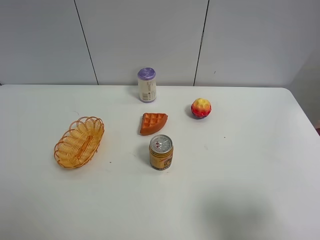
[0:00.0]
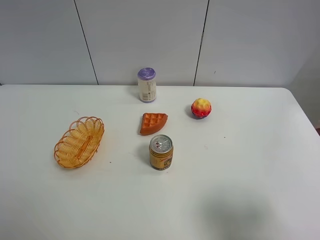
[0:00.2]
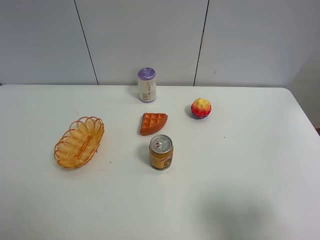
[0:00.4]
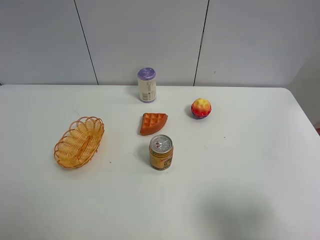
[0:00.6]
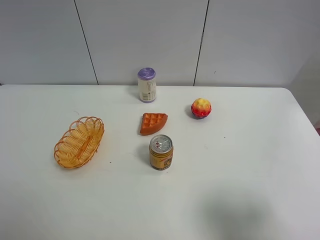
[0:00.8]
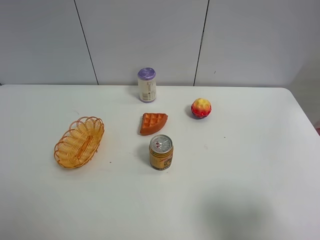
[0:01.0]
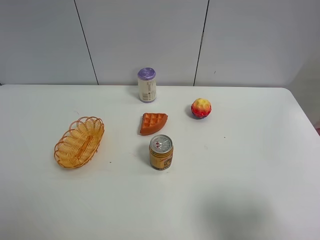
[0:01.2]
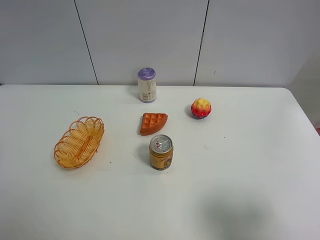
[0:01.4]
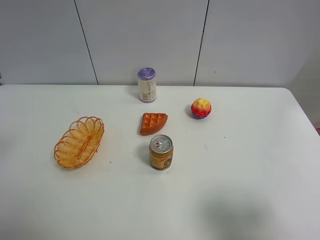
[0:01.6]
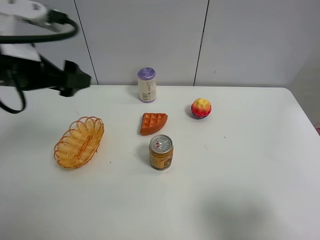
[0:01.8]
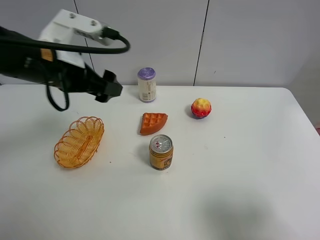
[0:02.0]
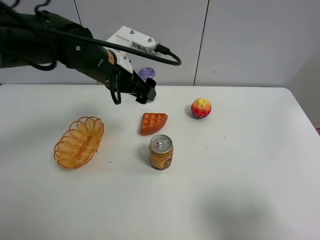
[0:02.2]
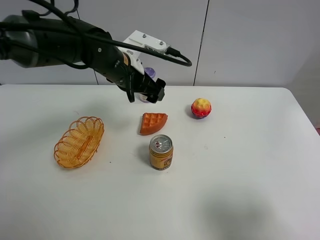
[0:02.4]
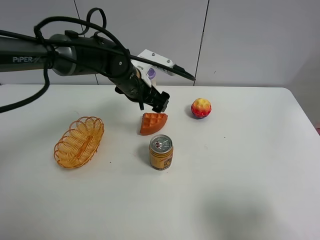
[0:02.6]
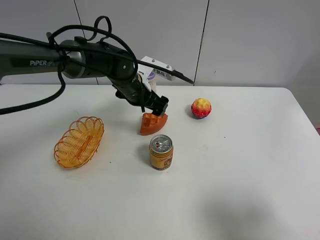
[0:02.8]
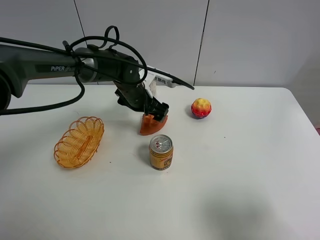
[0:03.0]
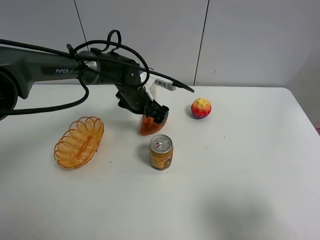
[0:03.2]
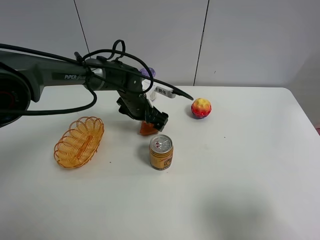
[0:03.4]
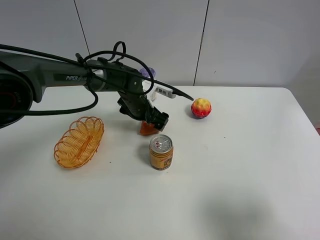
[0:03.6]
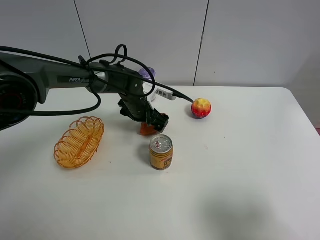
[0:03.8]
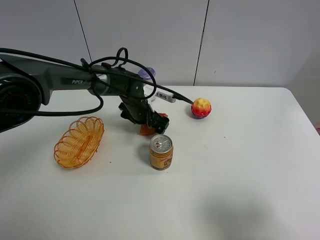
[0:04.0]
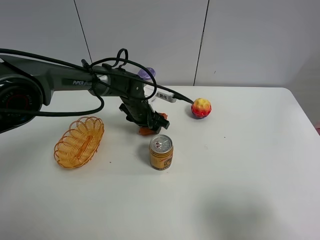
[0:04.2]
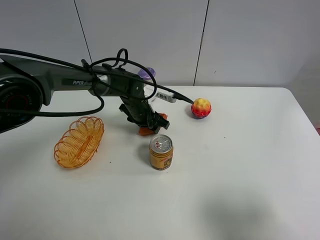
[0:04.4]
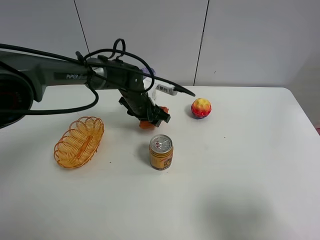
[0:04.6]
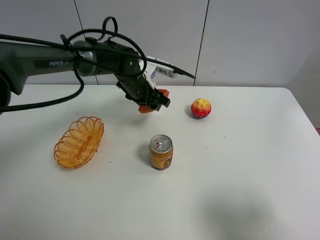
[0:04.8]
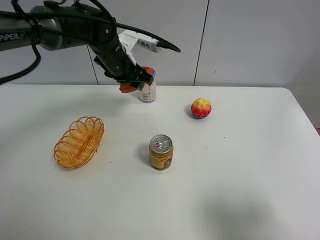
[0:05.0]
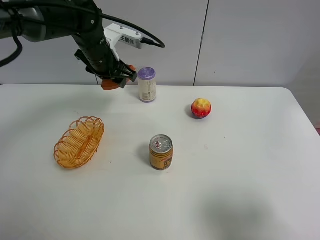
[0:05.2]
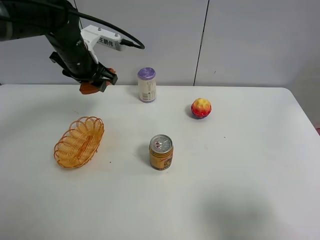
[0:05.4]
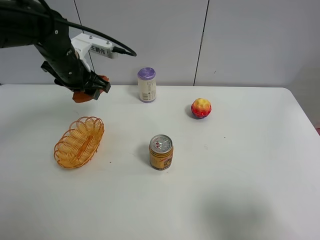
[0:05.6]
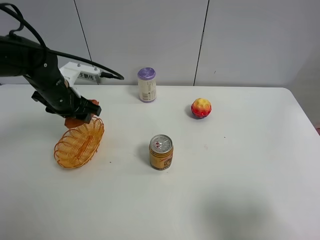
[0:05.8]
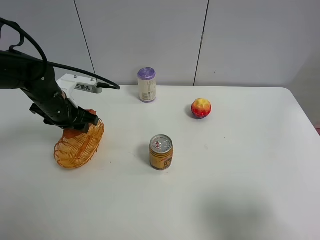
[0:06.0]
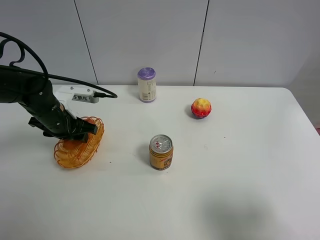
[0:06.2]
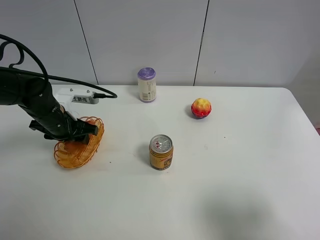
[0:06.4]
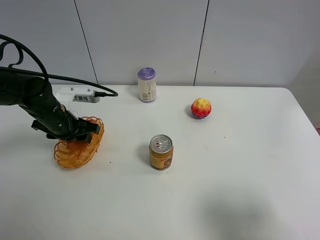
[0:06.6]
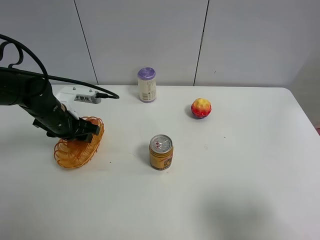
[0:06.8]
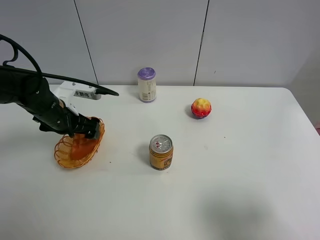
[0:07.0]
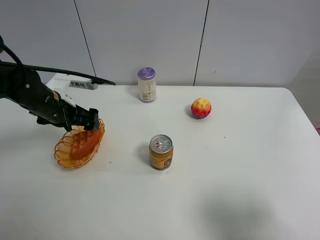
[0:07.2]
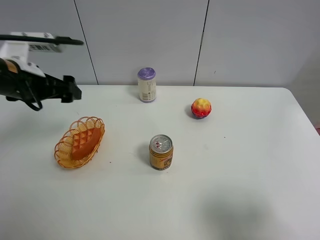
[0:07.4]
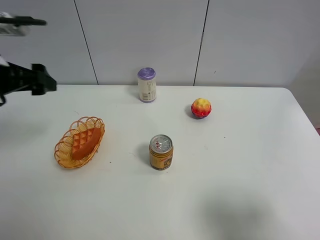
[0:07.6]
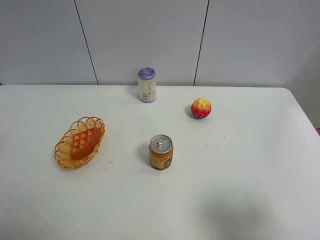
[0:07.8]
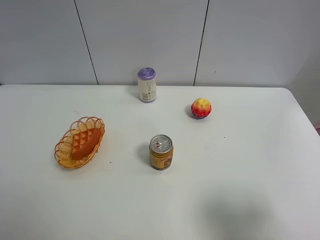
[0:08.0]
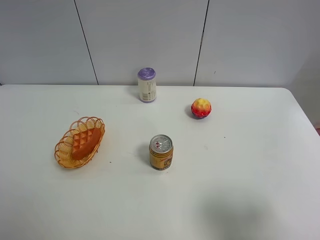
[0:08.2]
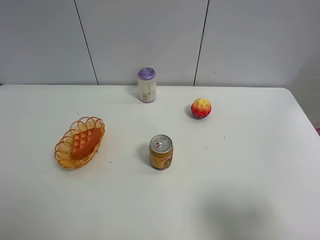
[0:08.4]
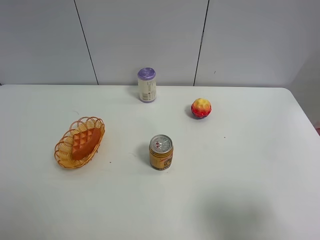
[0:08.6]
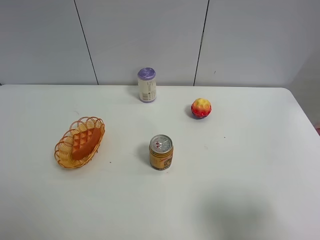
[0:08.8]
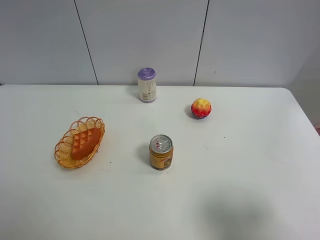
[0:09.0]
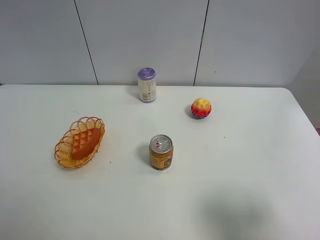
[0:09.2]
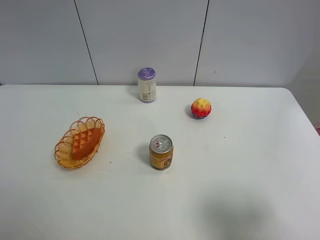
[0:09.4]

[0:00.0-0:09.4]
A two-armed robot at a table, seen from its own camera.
Task of the whole recording: Put the bakery in the basket.
0:01.6 to 0:03.2: The left gripper goes approximately 40 cm to the right, forward and downward.
0:03.2 to 0:04.8: The left gripper goes approximately 5 cm upward, and closes up.
0:04.8 to 0:06.2: The left gripper goes about 20 cm to the left and backward.
0:06.2 to 0:07.8: The left gripper heads upward, backward and to the left, covering approximately 30 cm, and opens its fingers.
